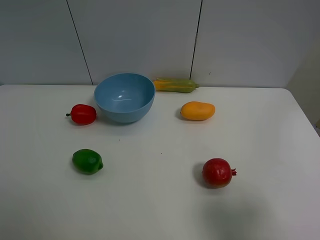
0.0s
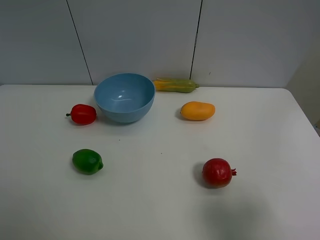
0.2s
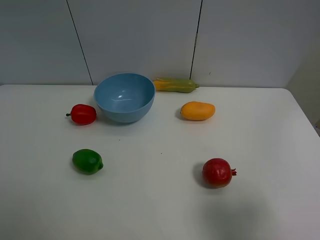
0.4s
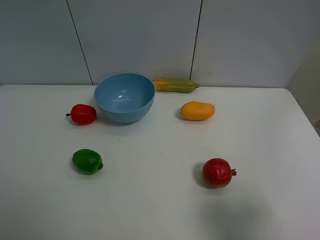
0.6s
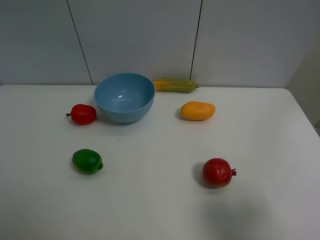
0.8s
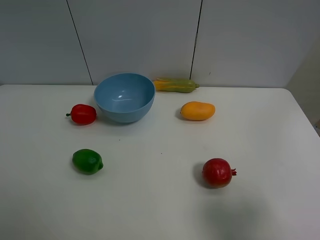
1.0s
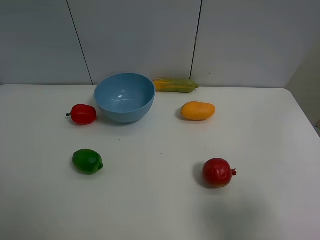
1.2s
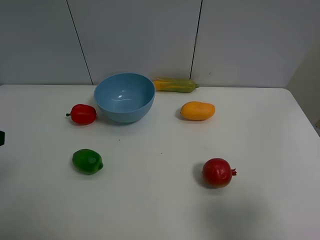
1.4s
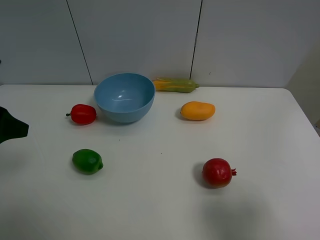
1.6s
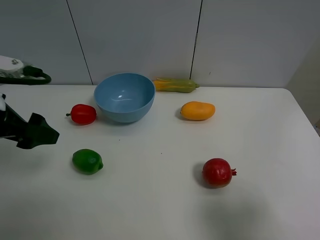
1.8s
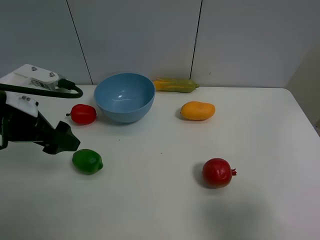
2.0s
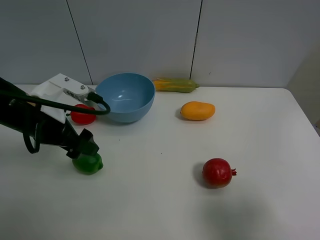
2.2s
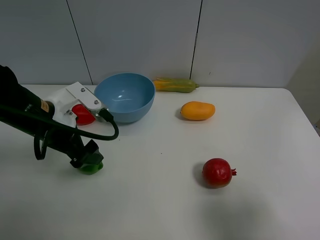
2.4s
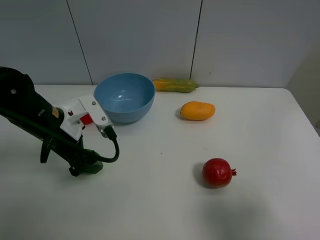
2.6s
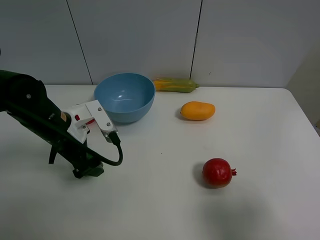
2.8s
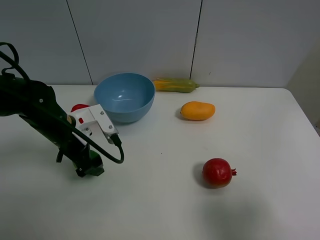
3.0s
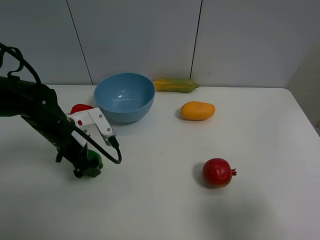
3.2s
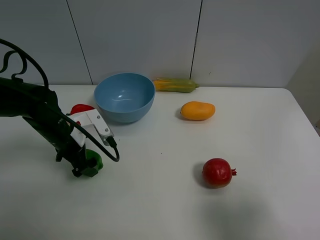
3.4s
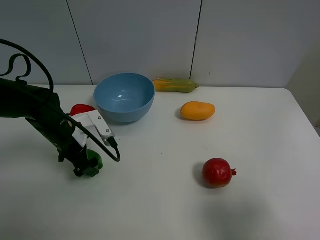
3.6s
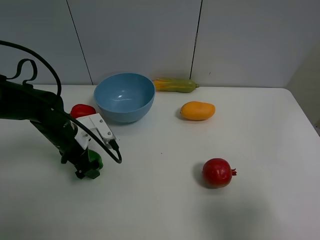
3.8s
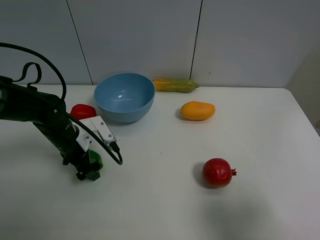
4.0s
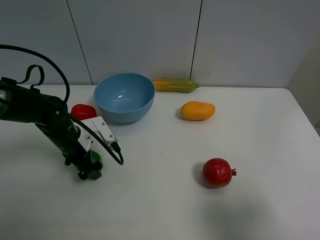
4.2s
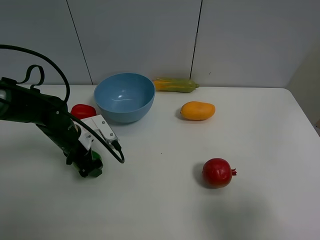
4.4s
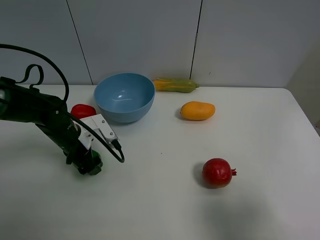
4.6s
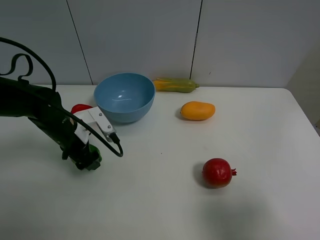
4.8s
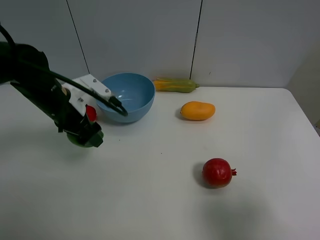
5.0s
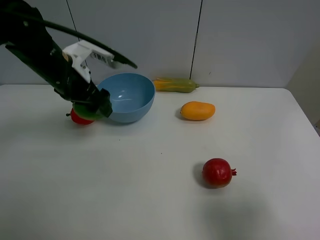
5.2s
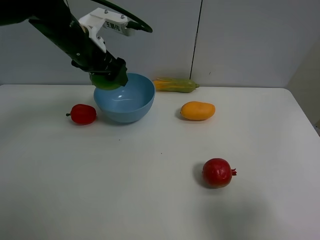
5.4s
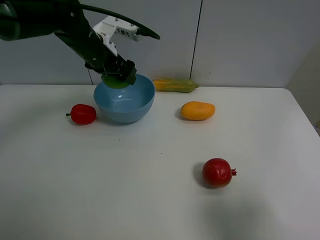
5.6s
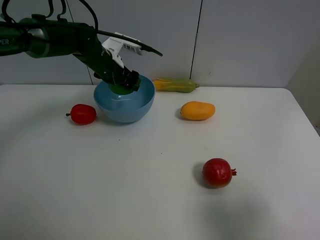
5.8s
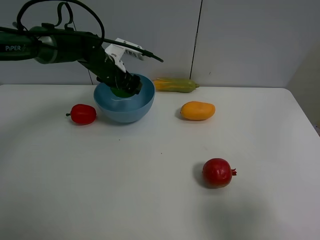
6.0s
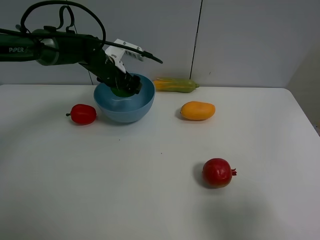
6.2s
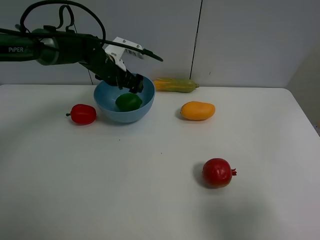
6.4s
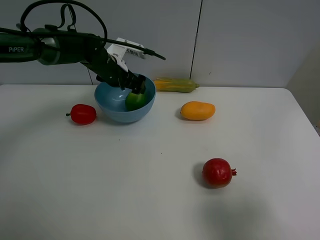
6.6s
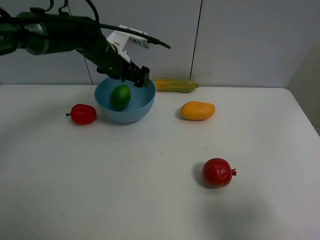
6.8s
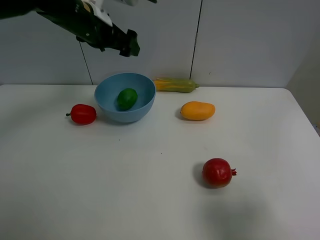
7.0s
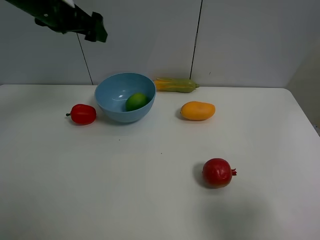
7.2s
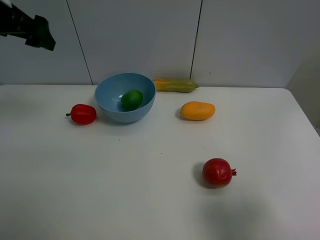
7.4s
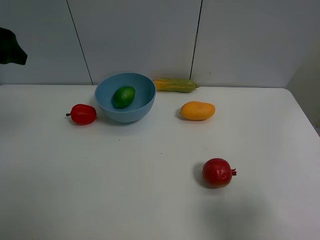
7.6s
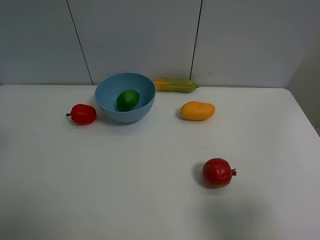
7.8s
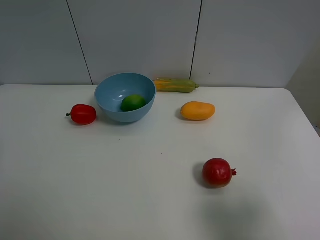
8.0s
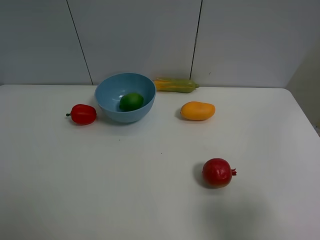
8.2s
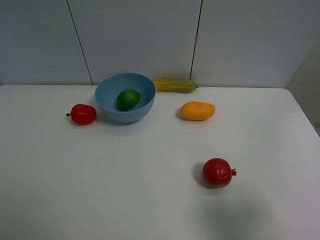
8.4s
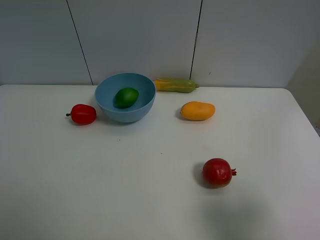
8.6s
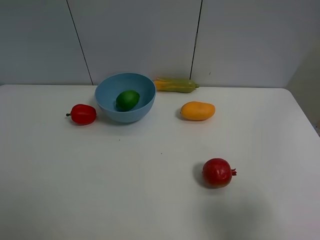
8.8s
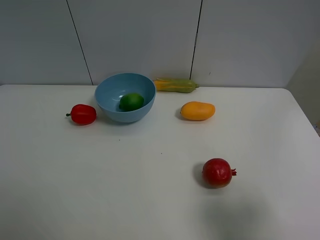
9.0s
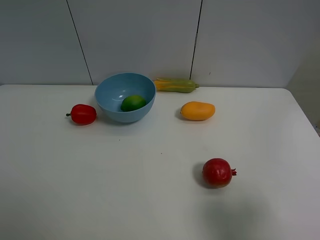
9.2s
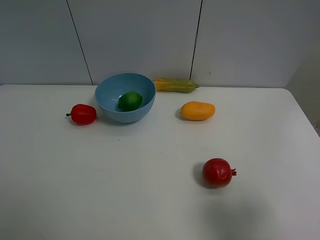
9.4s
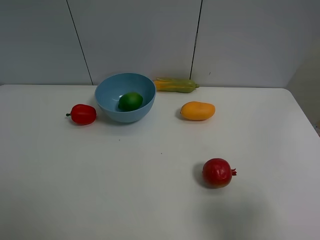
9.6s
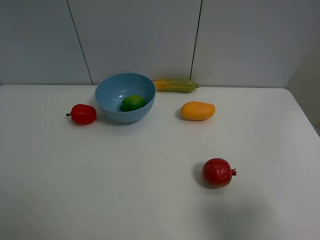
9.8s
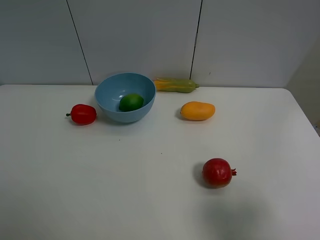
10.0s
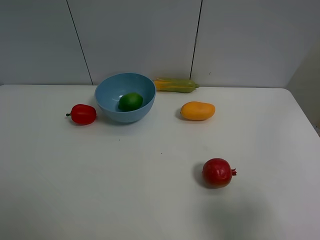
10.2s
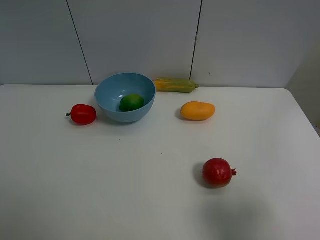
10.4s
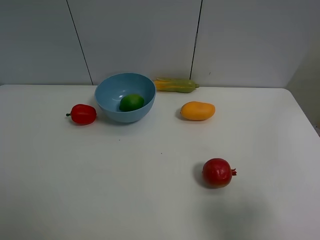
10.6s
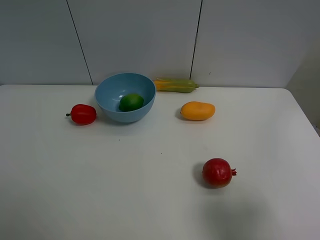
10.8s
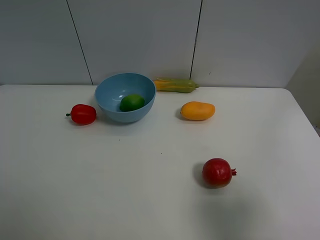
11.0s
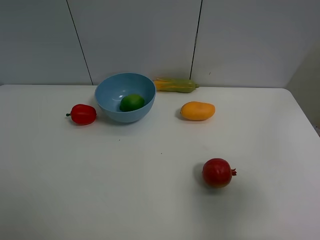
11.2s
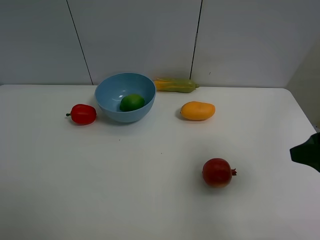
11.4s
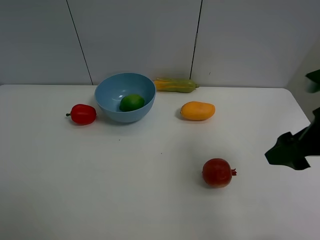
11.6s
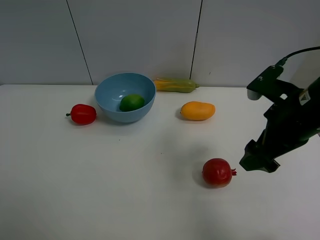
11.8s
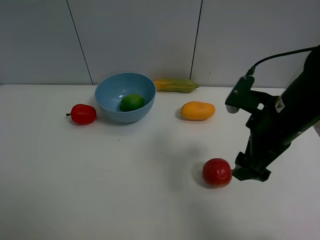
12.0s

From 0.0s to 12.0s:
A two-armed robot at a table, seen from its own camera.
Task of the whole recording: Put the three fruits on the table into a bowl.
Step, from 0.0s to 4.4s: Grasp the green lemon with left gripper.
Step, from 4.6s to 6.6s: Place the green lemon in the blue bowl with left gripper.
From 0.0s to 1.6s: The left gripper heads forward, covering roughly 15 cm.
From 1.6s to 3.0s: The left gripper travels downward, to the right and forward by about 20 cm.
From 3.0s to 4.4s: The left gripper heads downward, covering about 5 cm, and closes.
From 4.4s to 6.0s: The left gripper moves forward, upward and to the right, roughly 20 cm.
From 6.0s to 7.6s: The left gripper travels upward, backward and to the left by roughly 30 cm, and opens up.
From 7.6s to 9.0s: The left gripper is displaced backward and downward by some 25 cm.
From 9.0s to 10.4s: The two grippers keep their place.
From 10.4s to 12.0s: The right gripper shifts roughly 25 cm forward and to the left.

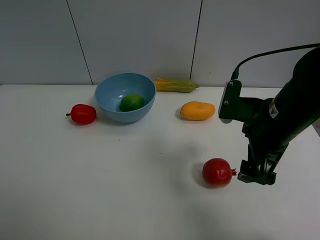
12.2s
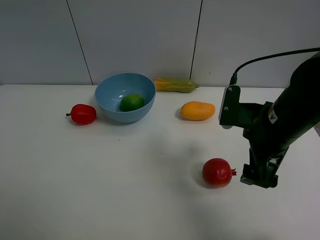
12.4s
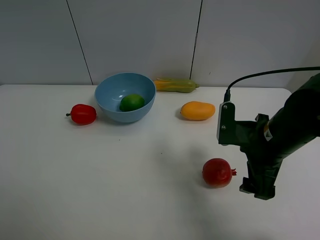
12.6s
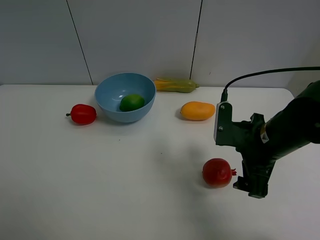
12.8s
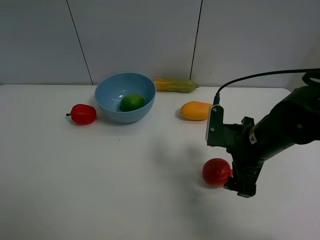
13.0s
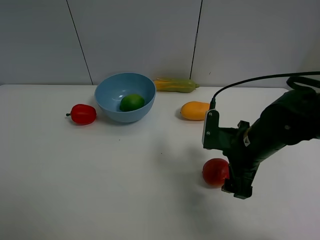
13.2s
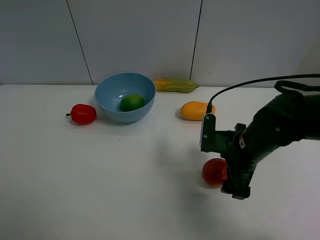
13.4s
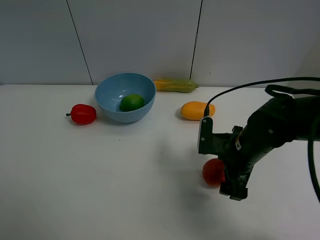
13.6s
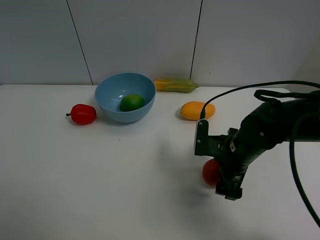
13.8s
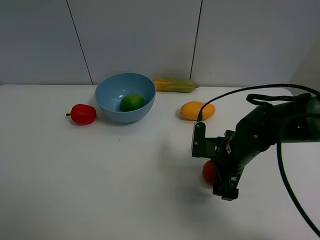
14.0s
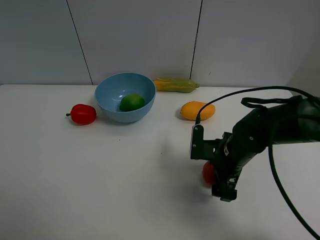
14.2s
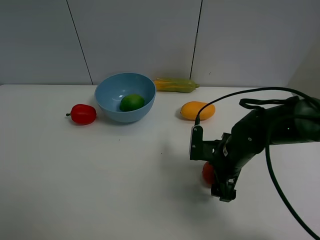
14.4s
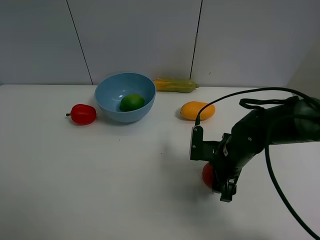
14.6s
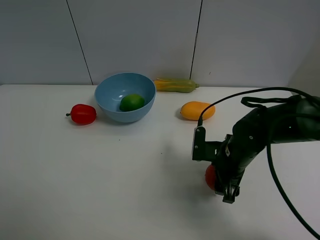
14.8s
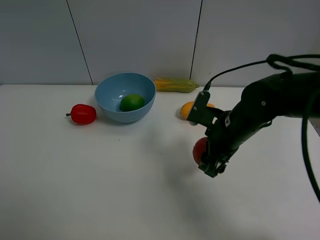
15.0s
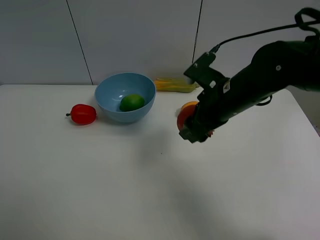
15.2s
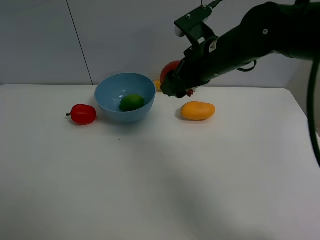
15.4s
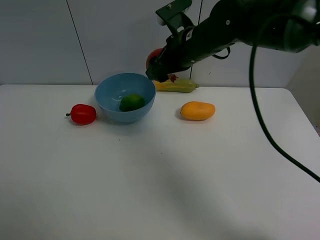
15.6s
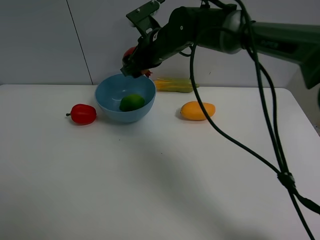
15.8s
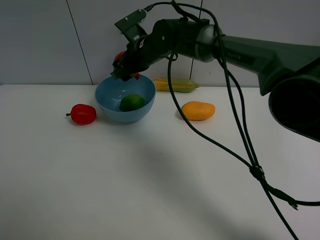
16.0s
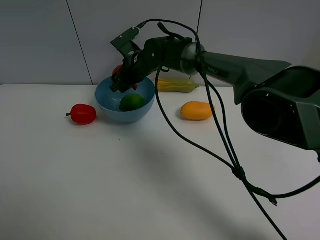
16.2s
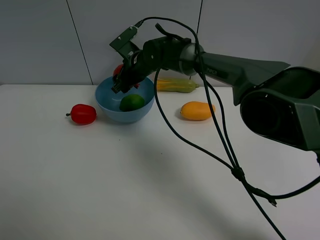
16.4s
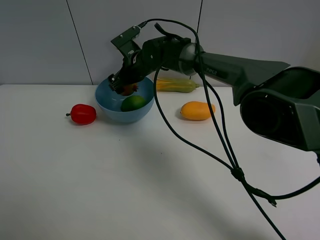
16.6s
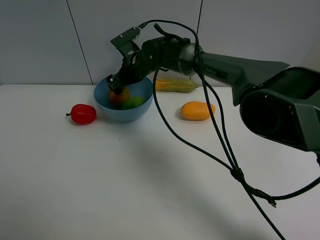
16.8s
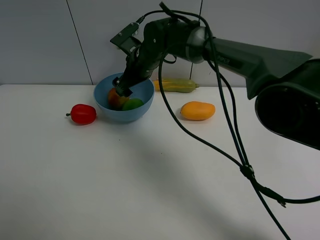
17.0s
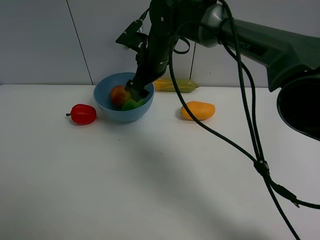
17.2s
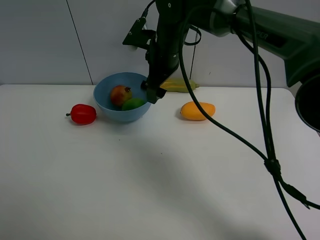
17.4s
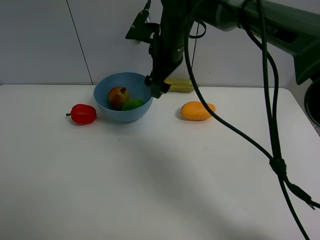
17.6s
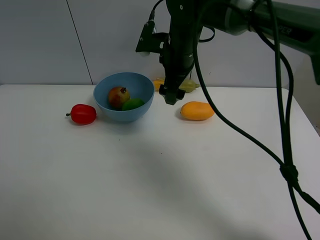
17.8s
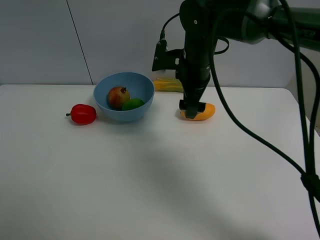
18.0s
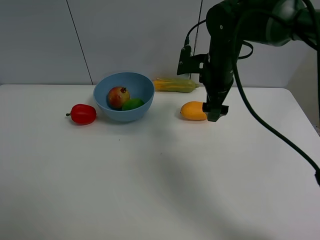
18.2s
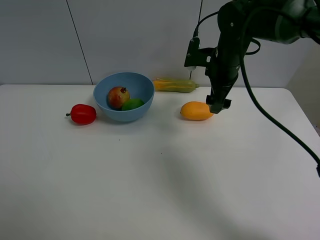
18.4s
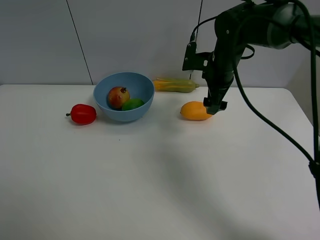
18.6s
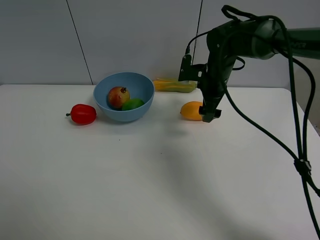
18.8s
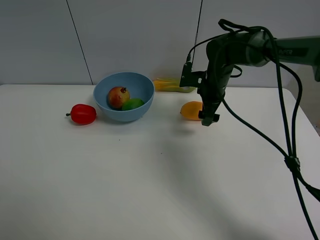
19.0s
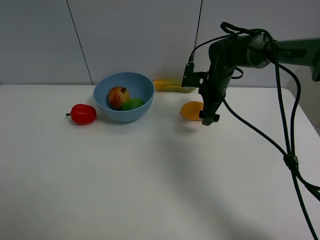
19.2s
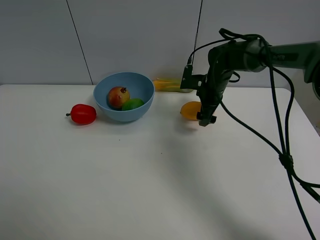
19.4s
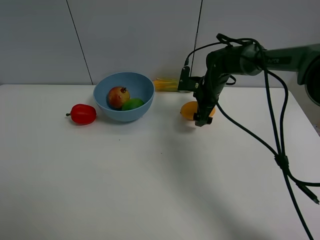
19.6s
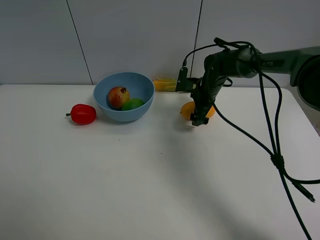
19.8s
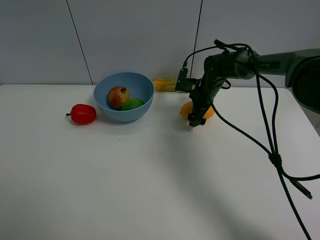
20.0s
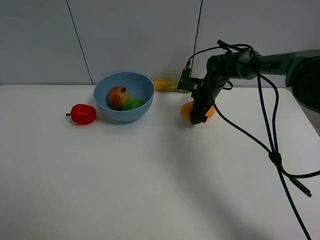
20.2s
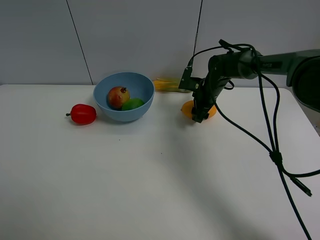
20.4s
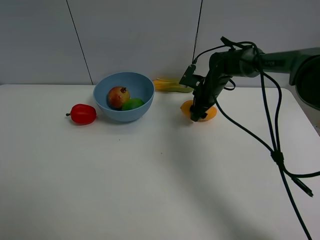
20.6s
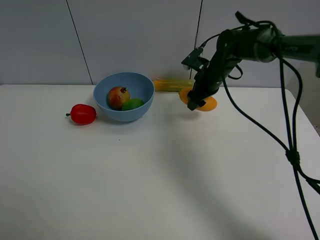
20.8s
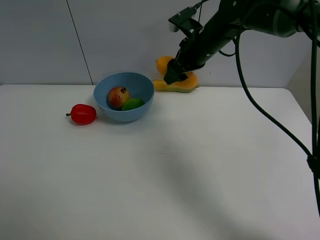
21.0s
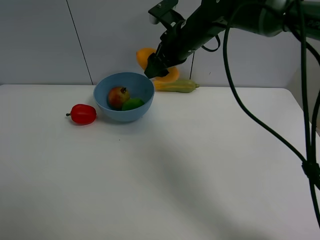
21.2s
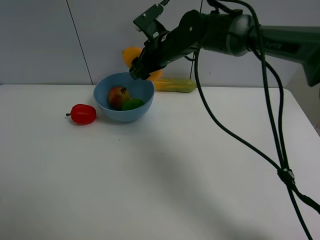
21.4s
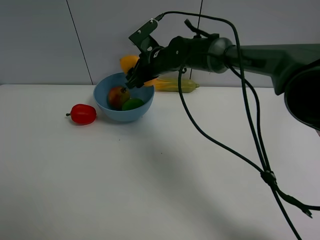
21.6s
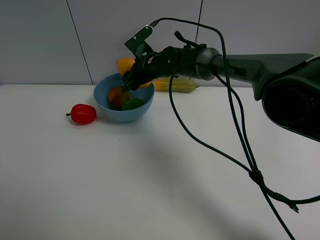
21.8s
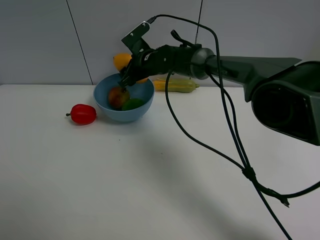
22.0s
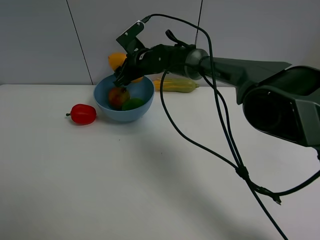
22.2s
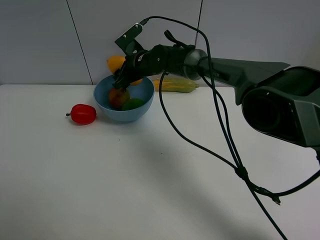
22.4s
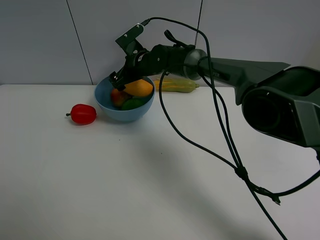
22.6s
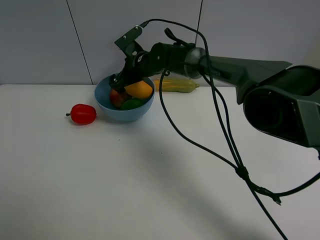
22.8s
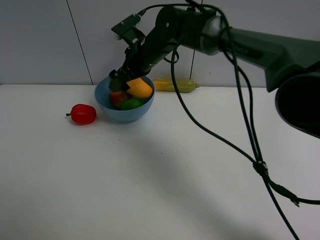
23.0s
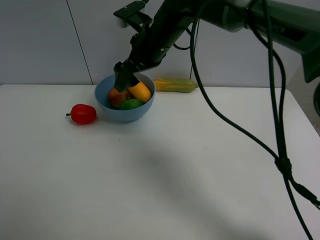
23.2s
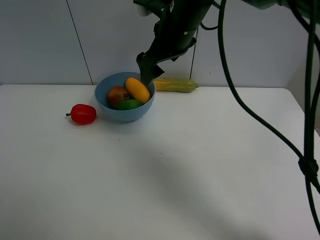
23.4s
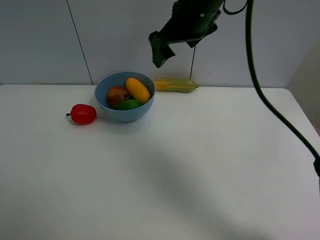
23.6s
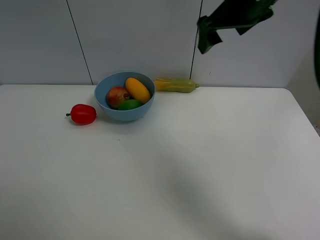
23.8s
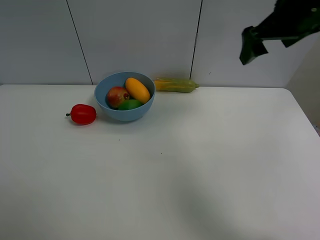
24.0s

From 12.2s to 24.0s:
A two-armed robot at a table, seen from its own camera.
Task of the whole recording: Put the three fruits on the table into a bowl.
Step, from 12.2s to 14.6s: Grasp the pomegranate with right gripper.
Step, from 14.8s to 16.8s: Place the pomegranate in the blue bowl with right gripper.
Step, from 17.0s to 20.4s: Grasp the mango with right gripper.
Step, from 20.6s to 22.8s: Place the mango in the blue bowl with right gripper.
From 12.2s to 13.6s: The right gripper goes about 10 cm downward.
From 13.6s to 15.2s: The right gripper goes roughly 10 cm upward, and closes up.
From 15.2s to 16.6s: The right gripper is displaced forward and to the left by roughly 25 cm, and opens up.
From 16.6s to 18.2s: The right gripper shifts approximately 20 cm to the right and backward.
From 18.2s to 19.6s: The right gripper is displaced downward and forward by roughly 15 cm.
From 19.6s to 21.0s: The right gripper is displaced upward by some 15 cm, and closes up.
From 21.0s to 22.6s: The right gripper shifts some 15 cm to the left, downward and forward, and opens its fingers.
From 22.6s to 24.0s: The right gripper is displaced to the right, upward and backward by some 35 cm.
